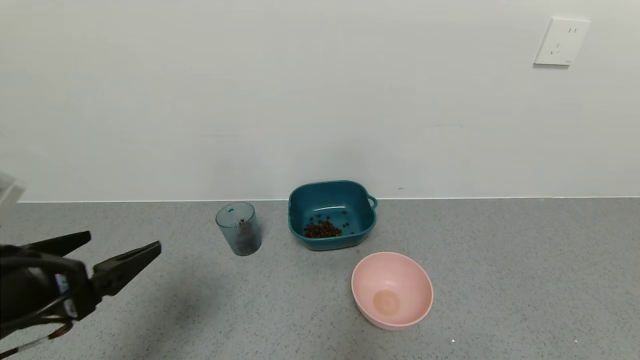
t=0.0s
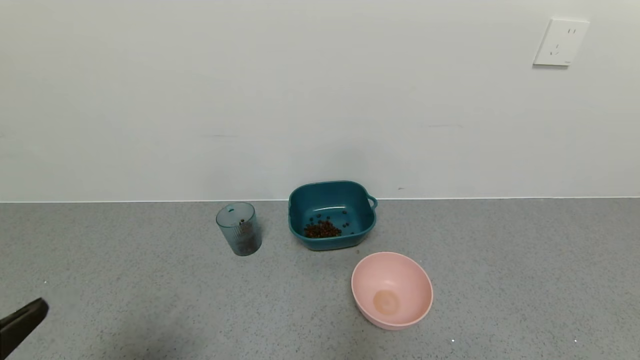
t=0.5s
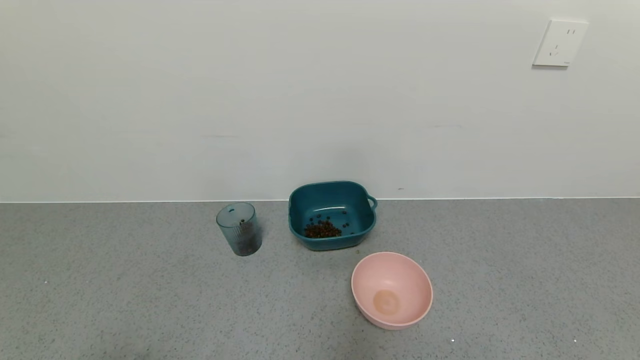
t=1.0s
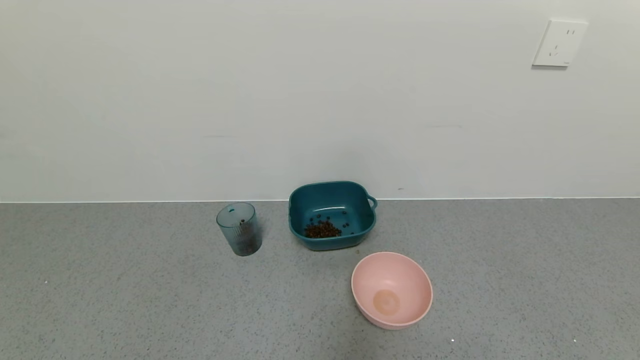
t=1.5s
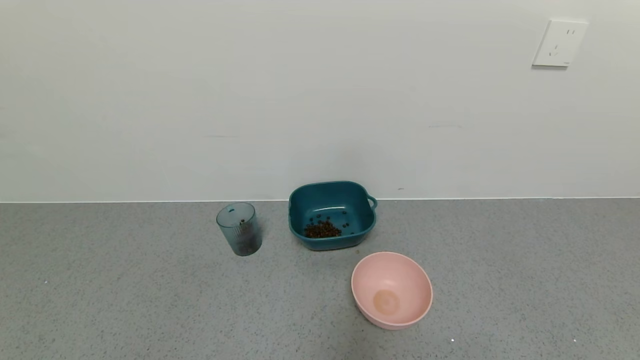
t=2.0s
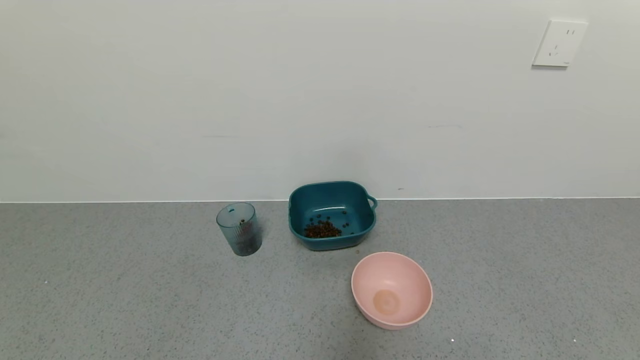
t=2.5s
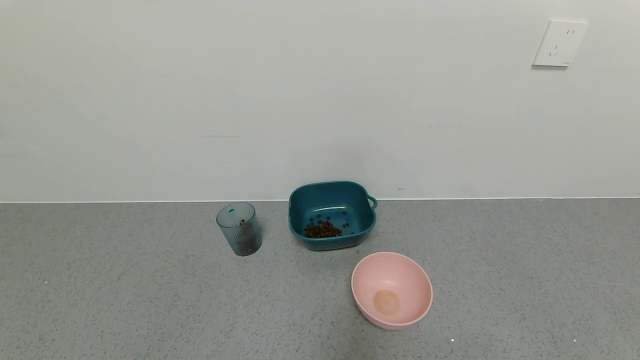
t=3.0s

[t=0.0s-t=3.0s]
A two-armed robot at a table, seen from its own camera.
Task of the whole recording: use a gripper to pick up the cup and pour the solid into a bowl or tray.
t=0.0s to t=1.5s: The left gripper is displaced backward by some 20 cm.

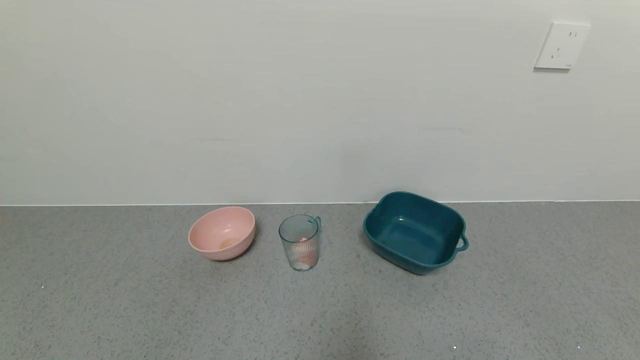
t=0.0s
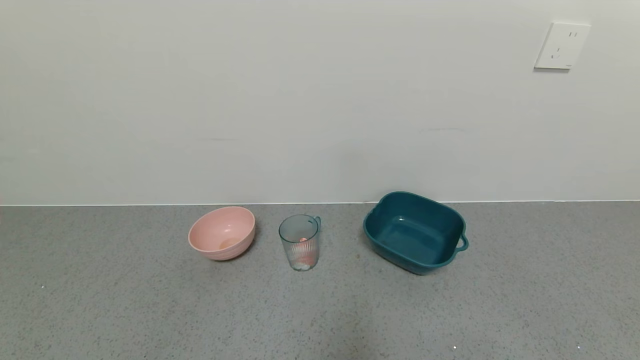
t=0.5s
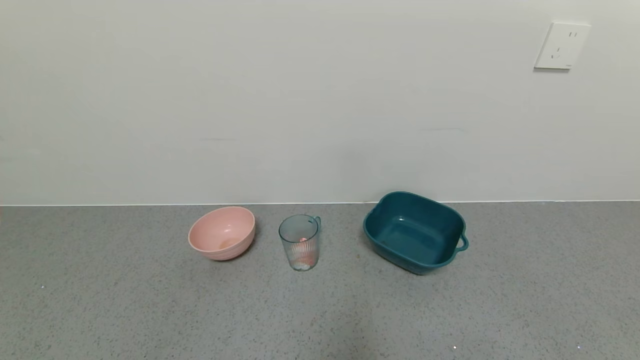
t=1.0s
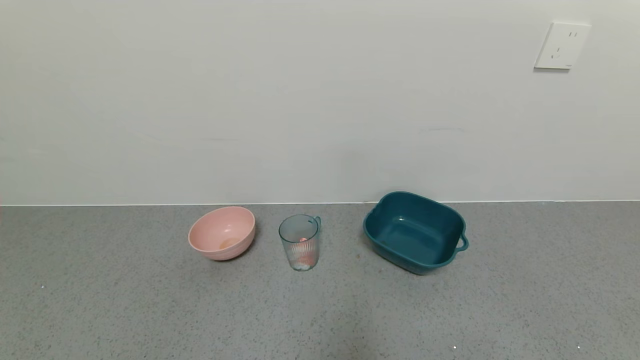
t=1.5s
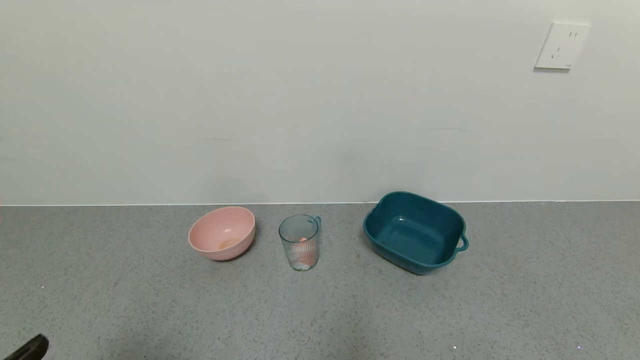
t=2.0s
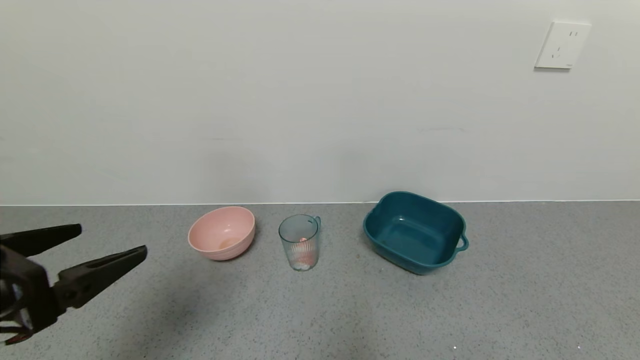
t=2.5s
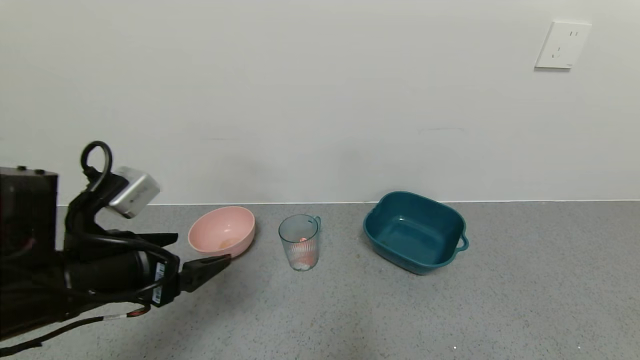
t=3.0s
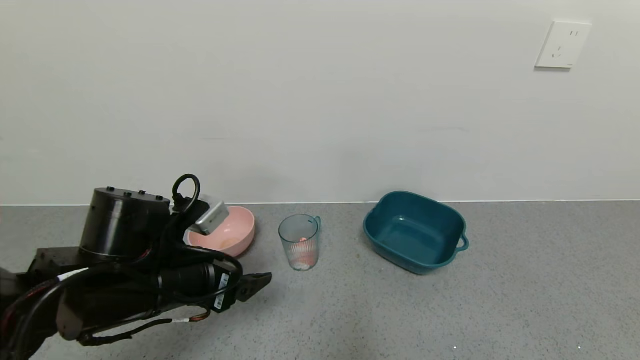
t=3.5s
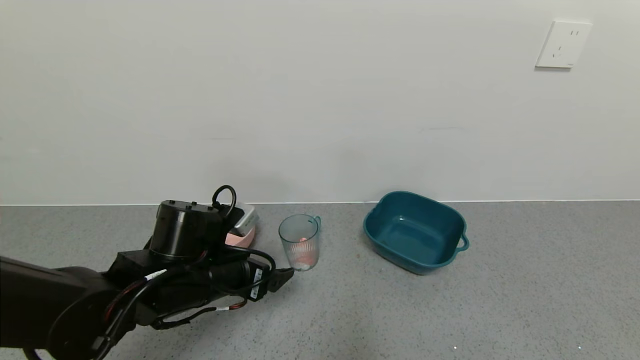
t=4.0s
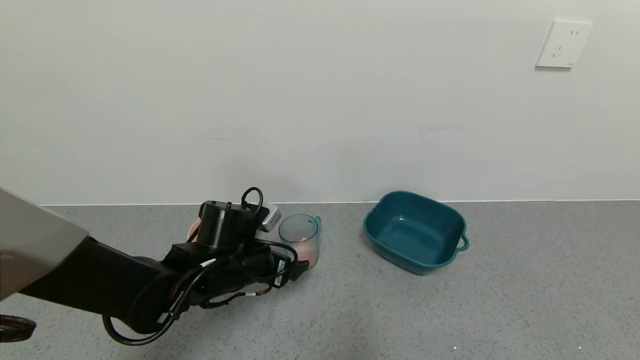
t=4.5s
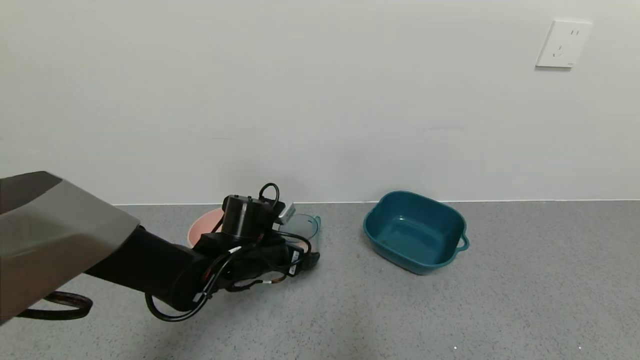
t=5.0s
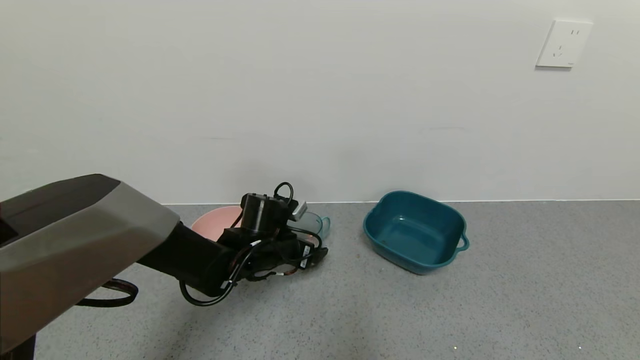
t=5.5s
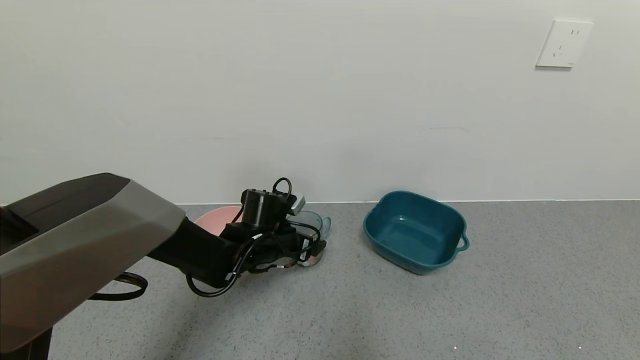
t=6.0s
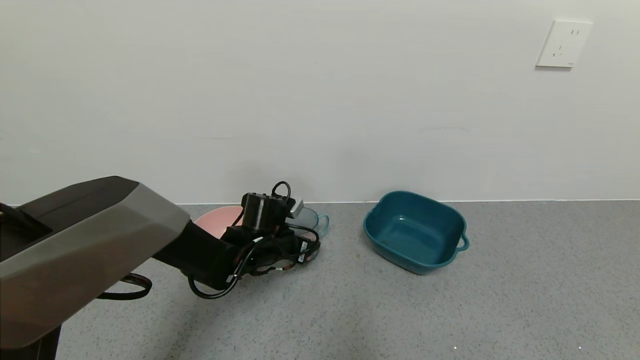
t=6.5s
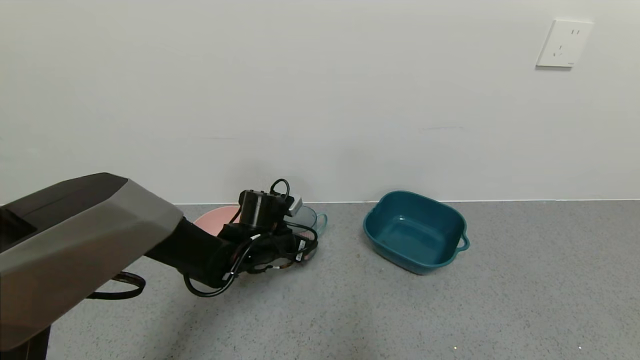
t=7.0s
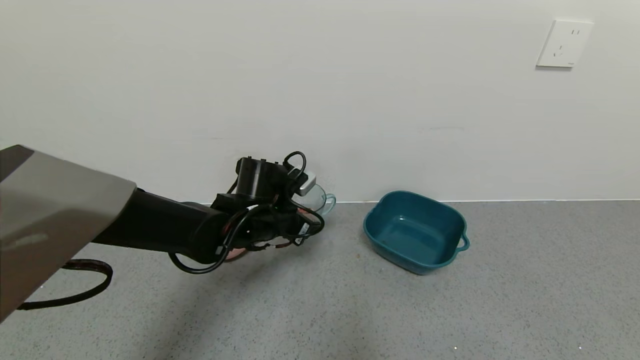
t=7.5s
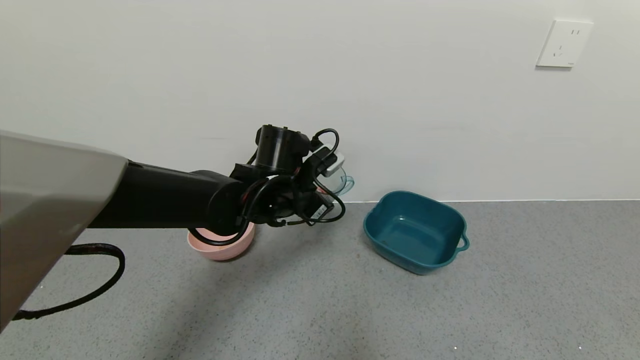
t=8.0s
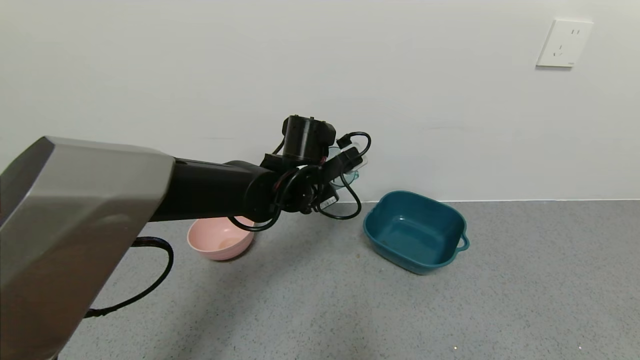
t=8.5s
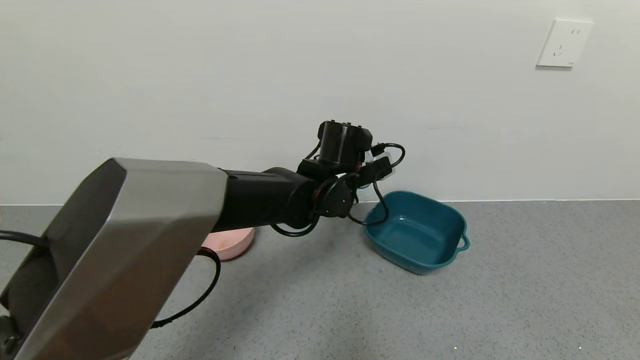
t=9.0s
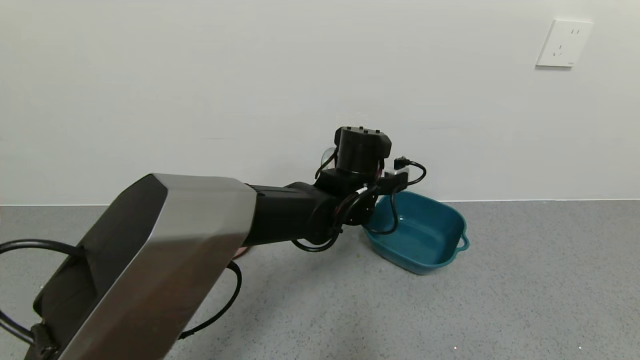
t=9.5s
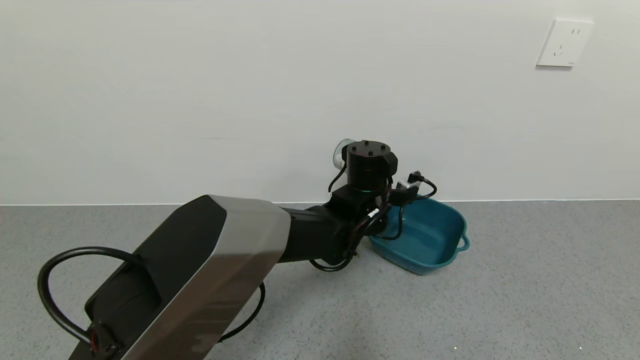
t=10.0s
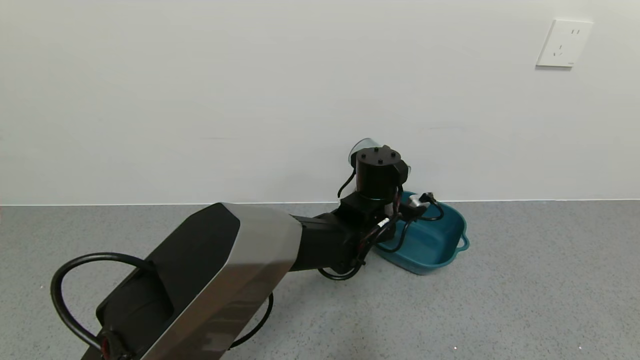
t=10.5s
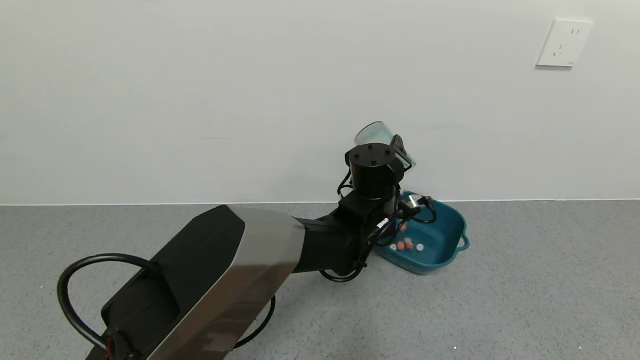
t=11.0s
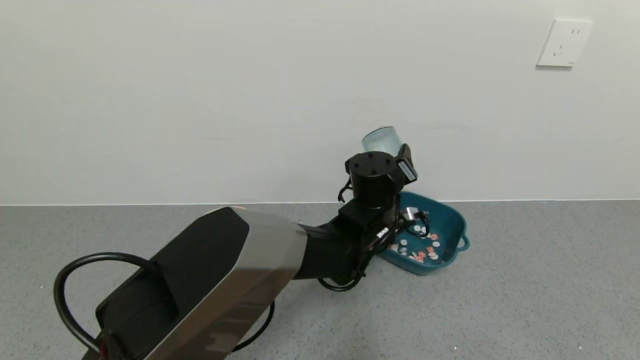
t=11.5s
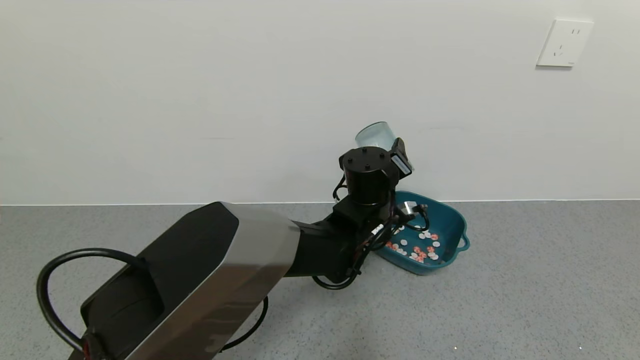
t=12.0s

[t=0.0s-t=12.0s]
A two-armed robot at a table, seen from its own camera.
Task of the whole recording: use a gripper to pick up the cup and pour the solid into a bowl or tray.
Step, t=0.0s to t=6.5s: Grasp the glass of shrimp with the left gripper.
t=2.0s to t=4.0s: The left gripper moves forward and to the right, about 25 cm.
t=4.0s to t=6.0s: The left gripper heads forward, downward and to the right, covering about 15 cm.
t=6.0s to t=8.0s: The left gripper goes roughly 10 cm upward, and closes.
t=8.0s to t=10.0s: The left gripper is displaced to the right by roughly 15 cm.

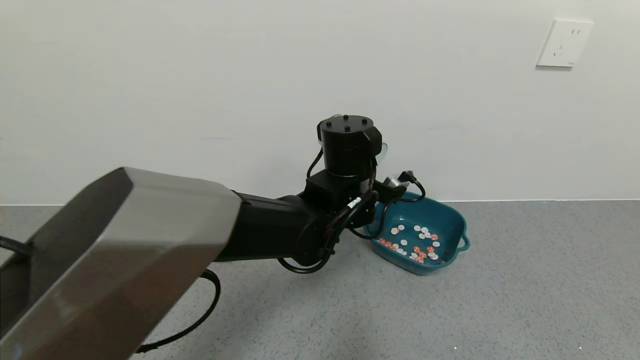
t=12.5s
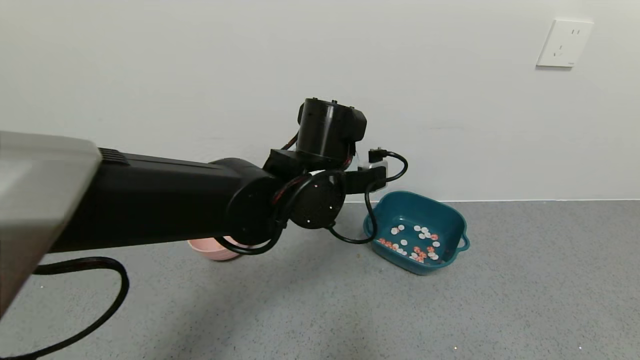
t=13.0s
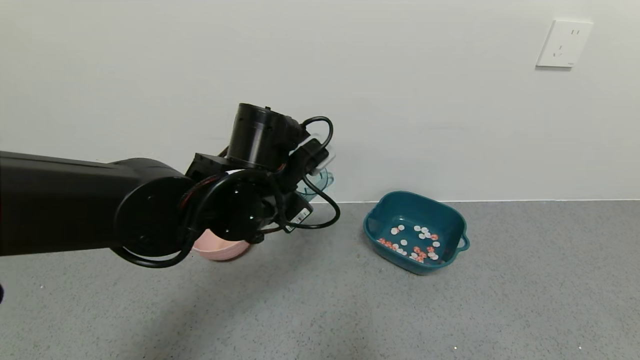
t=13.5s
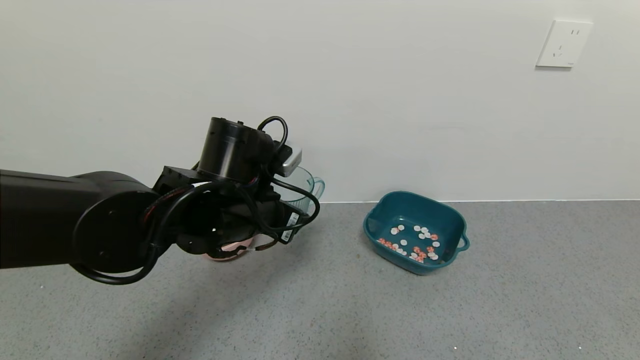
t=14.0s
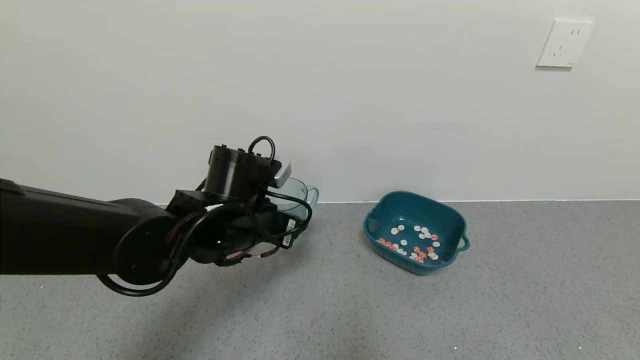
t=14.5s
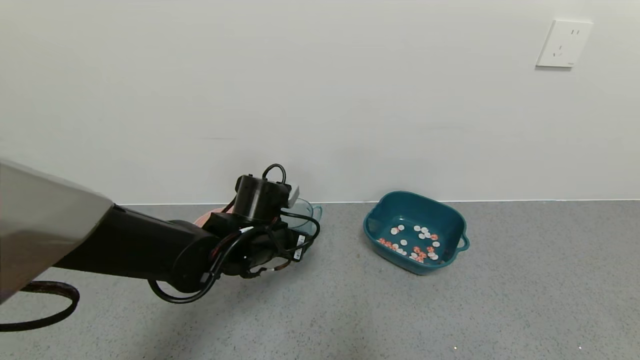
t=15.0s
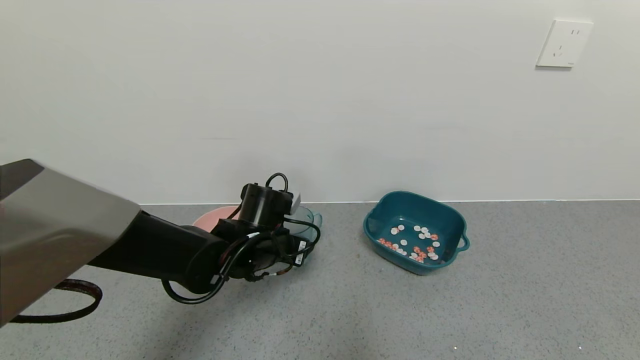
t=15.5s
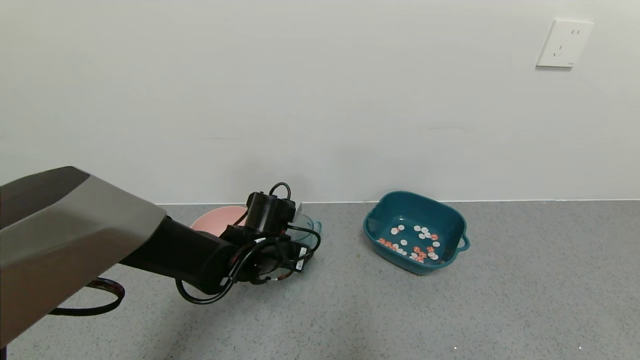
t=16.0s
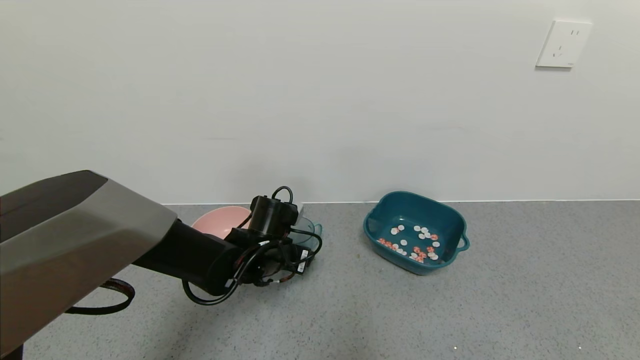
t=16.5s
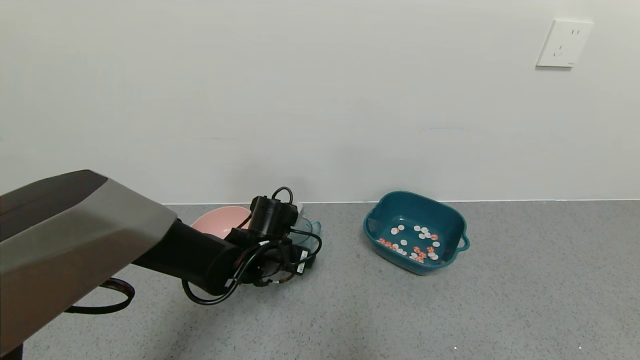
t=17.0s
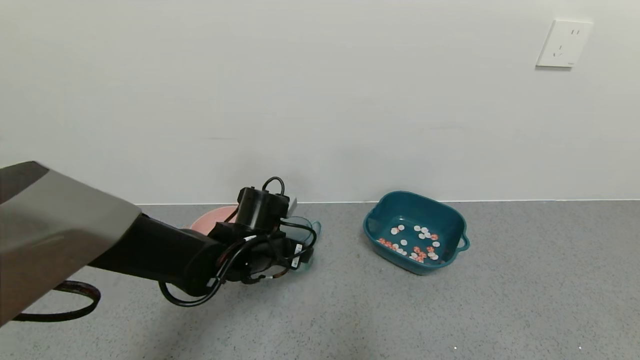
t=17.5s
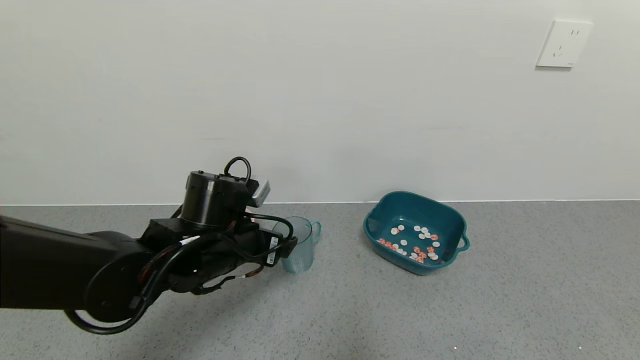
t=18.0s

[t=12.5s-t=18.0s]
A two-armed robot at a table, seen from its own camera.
Task of the whole recording: use a gripper to pick up the cup and pour the solid into a bowl or tray.
Step, t=12.5s to t=17.5s: Place the glass cup with the left gripper.
t=12.5s to t=14.5s: The left gripper is displaced to the left by approximately 15 cm.
t=14.5s to t=16.0s: The left gripper shifts some 10 cm downward.
t=16.0s to t=18.0s: The left gripper travels upward and backward by approximately 10 cm, and opens up.
